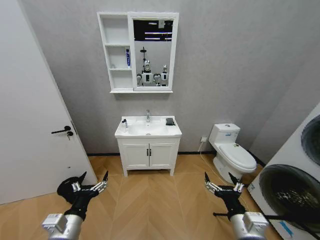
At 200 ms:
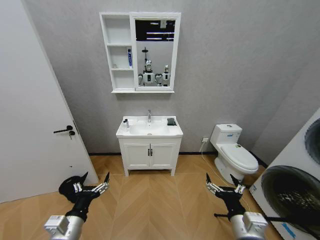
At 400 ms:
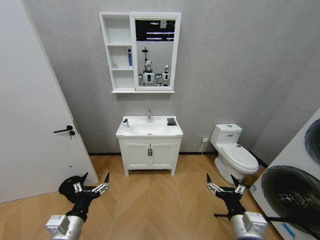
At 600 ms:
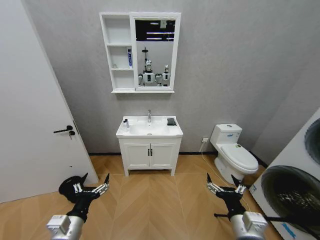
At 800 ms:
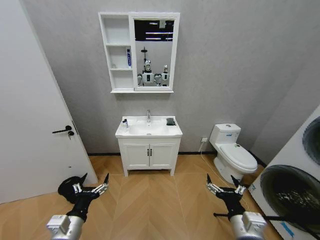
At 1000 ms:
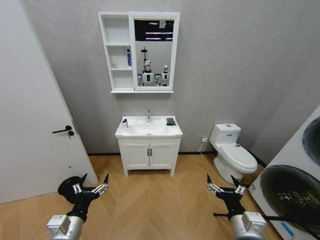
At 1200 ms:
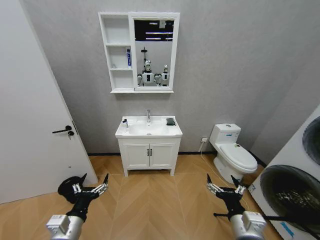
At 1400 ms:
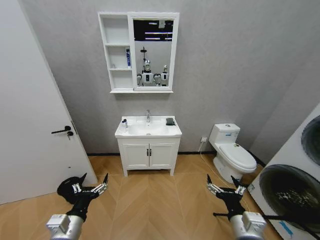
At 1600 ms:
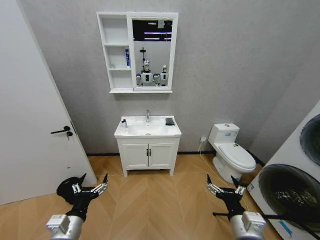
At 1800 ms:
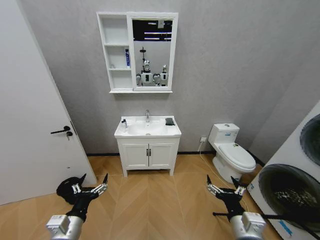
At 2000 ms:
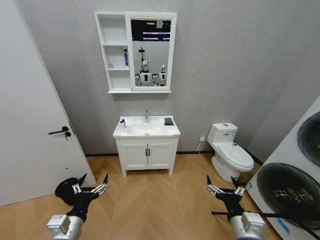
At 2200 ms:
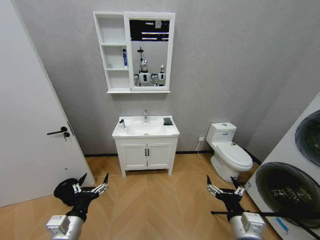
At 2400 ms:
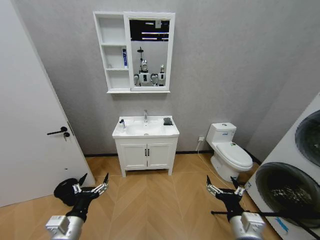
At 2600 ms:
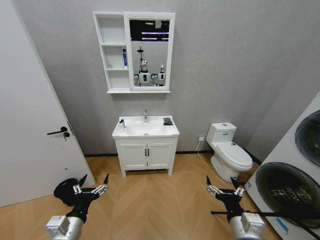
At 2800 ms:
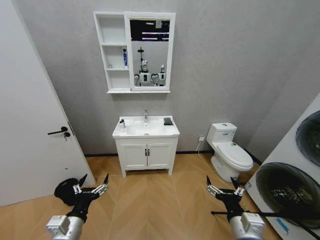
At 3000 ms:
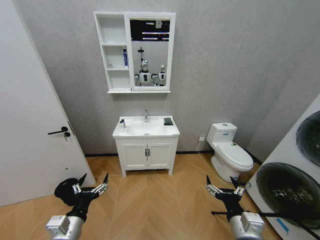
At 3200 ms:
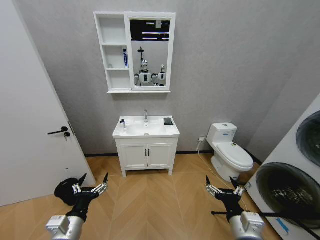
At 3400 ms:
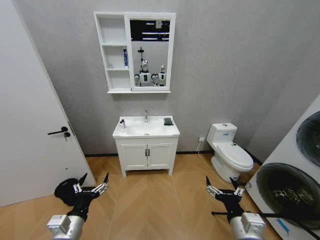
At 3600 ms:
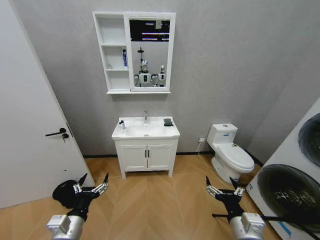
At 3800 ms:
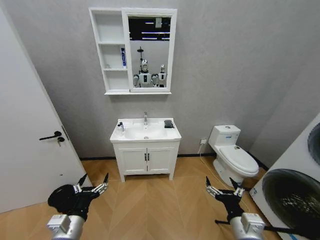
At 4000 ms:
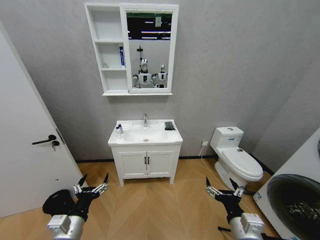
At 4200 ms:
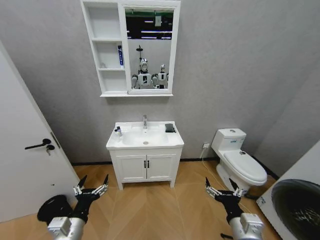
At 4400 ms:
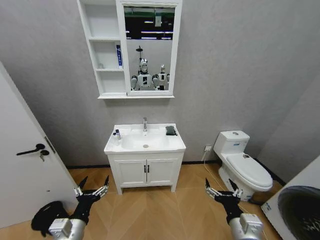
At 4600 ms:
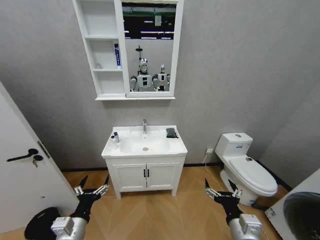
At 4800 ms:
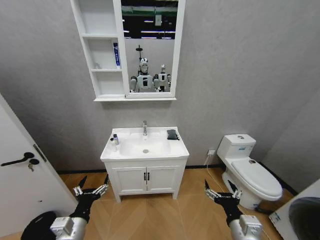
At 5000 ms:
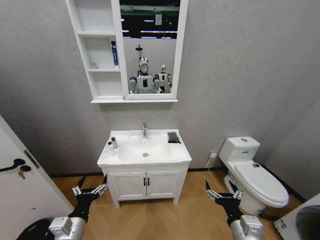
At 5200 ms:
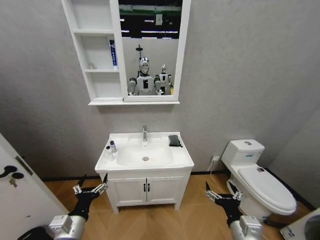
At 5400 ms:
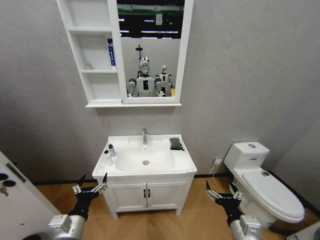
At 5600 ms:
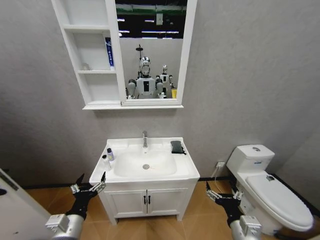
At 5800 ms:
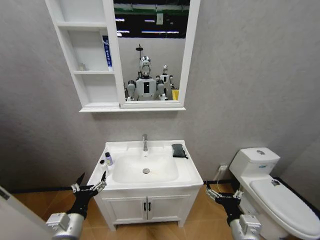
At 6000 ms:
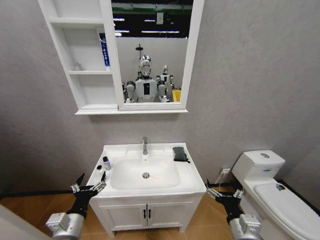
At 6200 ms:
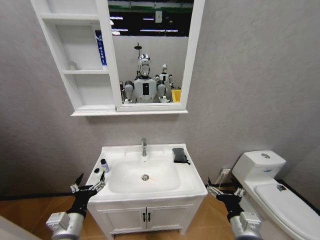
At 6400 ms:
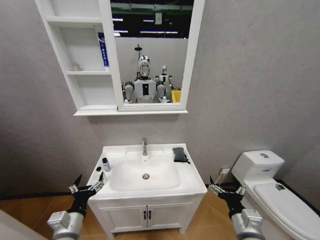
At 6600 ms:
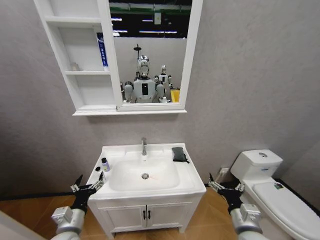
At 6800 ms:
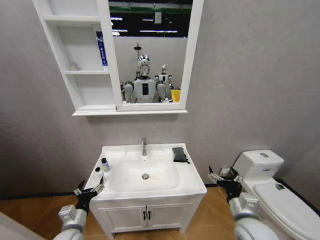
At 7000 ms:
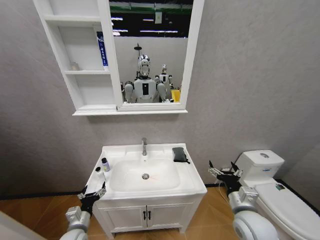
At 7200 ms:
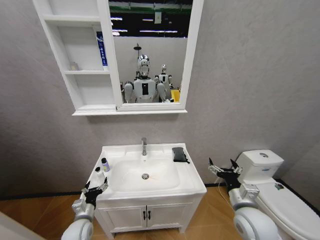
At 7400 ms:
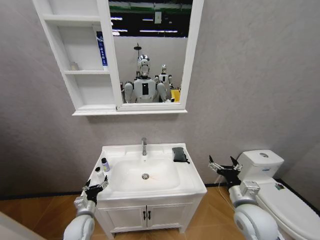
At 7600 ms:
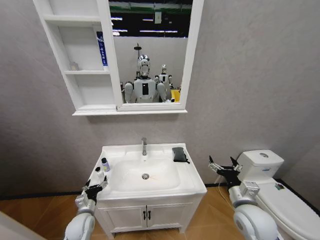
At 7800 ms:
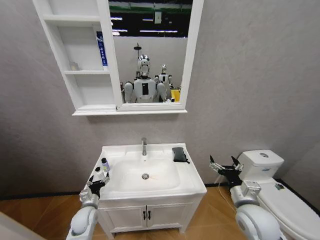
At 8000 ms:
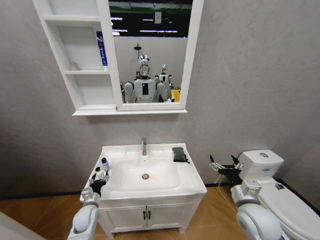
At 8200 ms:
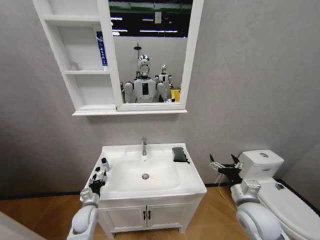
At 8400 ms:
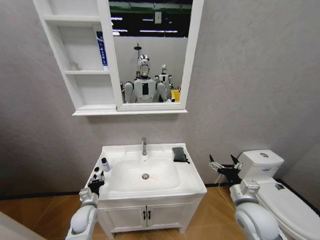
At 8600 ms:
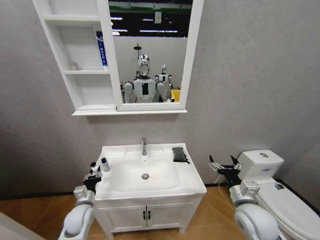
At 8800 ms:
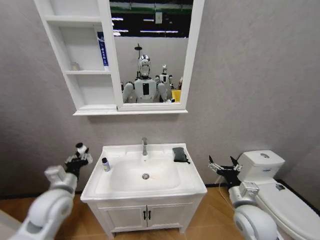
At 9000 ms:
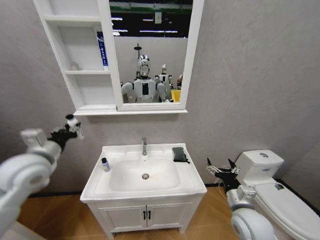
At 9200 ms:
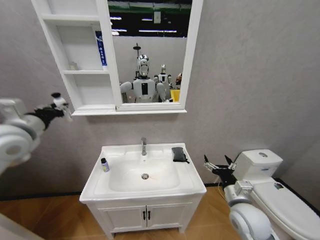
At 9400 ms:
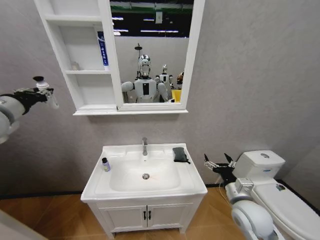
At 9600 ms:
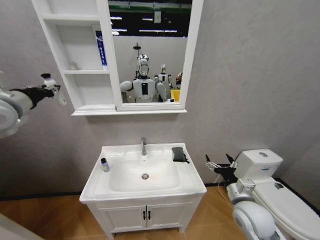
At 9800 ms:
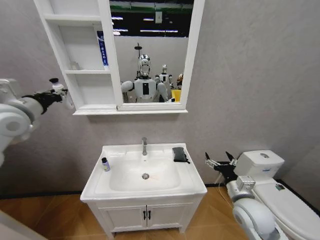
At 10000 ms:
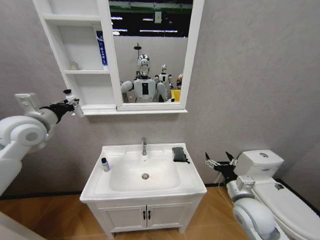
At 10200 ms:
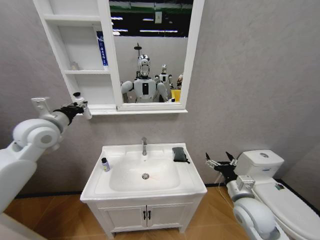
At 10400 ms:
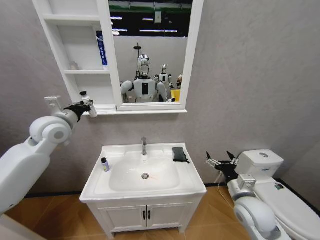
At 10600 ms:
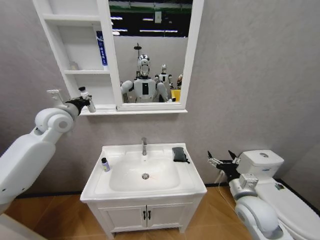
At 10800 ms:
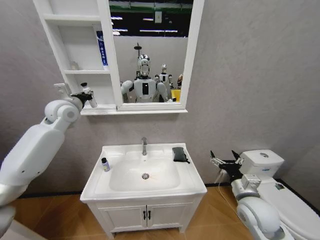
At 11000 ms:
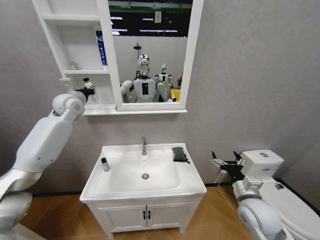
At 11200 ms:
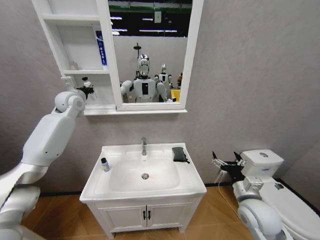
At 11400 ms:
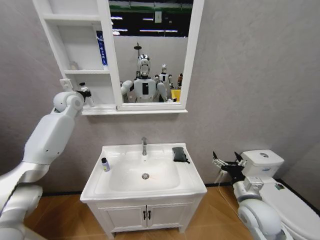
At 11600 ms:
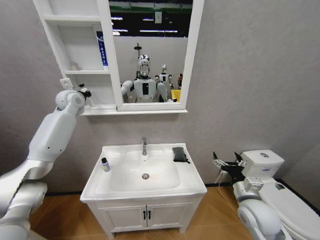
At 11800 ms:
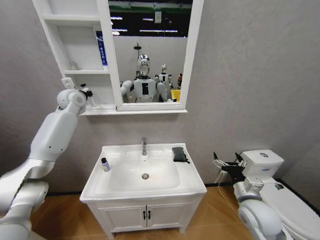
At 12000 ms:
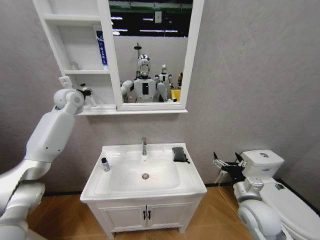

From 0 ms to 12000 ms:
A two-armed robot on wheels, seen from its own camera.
Task of the whole recording: Move facial cleanser and shampoo from washbasin to cabinet, then wipe washbasin with towel.
From 1600 ms to 3000 ms: The two grippers keep their place.
From 6000 ms to 7600 ms: The left gripper is displaced downward and forward by about 20 cm. Meanwhile the right gripper shifts about 10 cm forward.
From 7600 ms to 9000 ms: The left gripper shifts about 35 cm upward, and closes up.
From 9000 ms to 10400 ms: The left gripper moves forward and upward, some 15 cm.
From 10400 ms to 12000 ms: The left gripper heads forward, covering approximately 15 cm.

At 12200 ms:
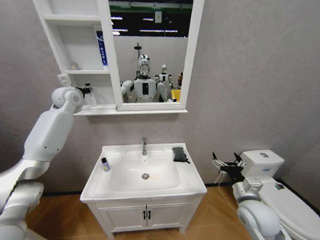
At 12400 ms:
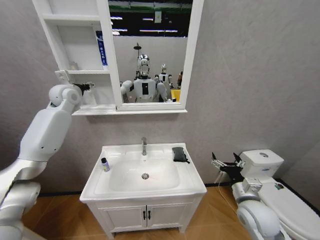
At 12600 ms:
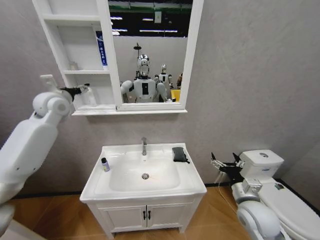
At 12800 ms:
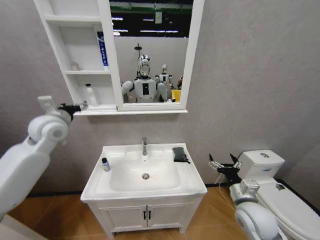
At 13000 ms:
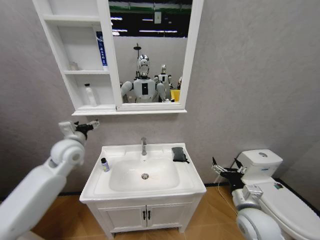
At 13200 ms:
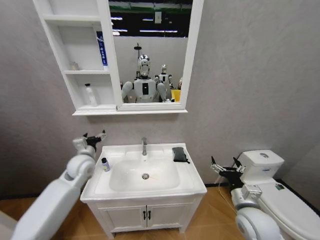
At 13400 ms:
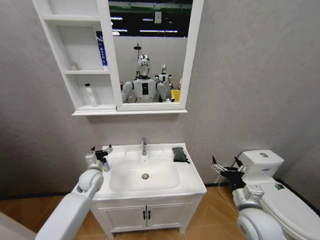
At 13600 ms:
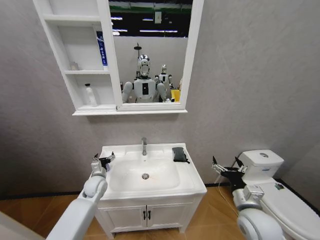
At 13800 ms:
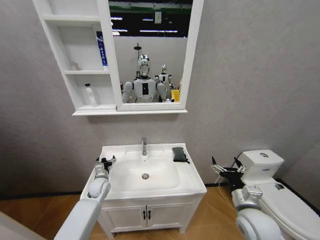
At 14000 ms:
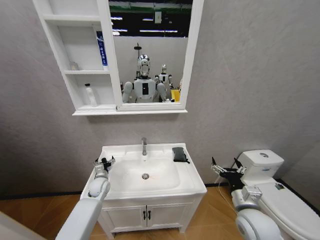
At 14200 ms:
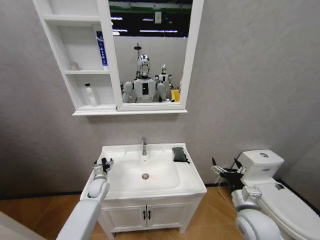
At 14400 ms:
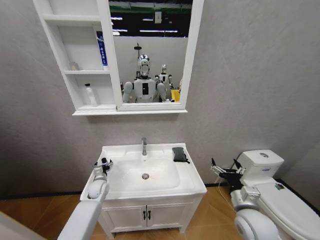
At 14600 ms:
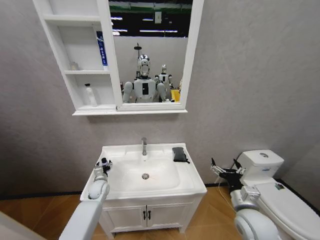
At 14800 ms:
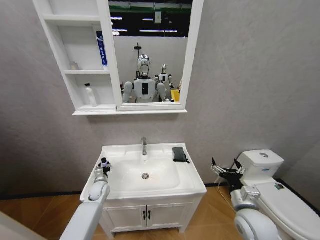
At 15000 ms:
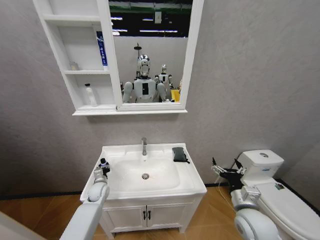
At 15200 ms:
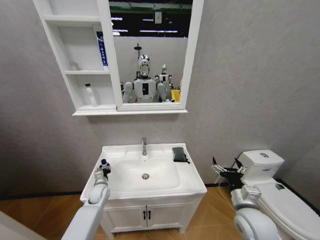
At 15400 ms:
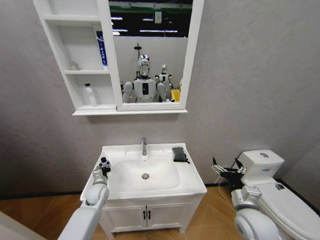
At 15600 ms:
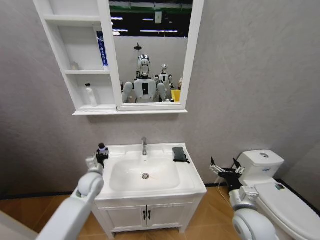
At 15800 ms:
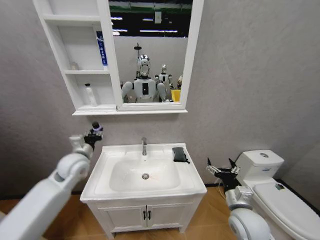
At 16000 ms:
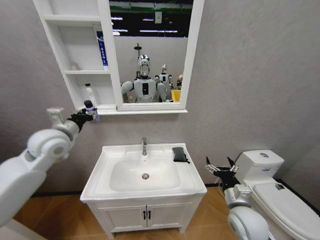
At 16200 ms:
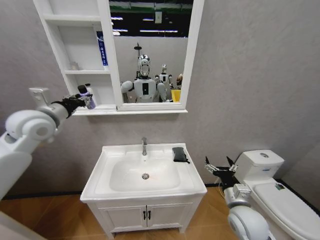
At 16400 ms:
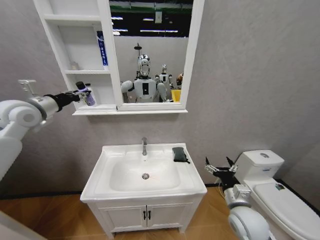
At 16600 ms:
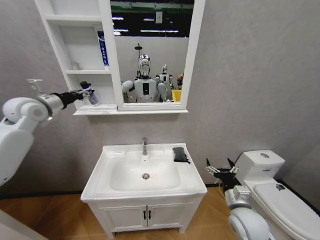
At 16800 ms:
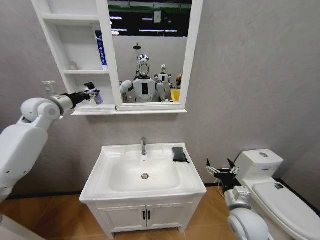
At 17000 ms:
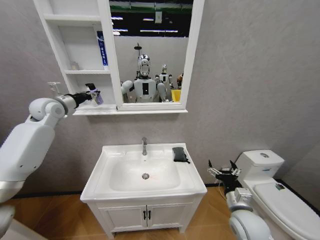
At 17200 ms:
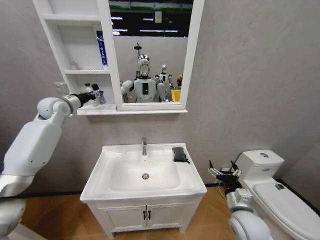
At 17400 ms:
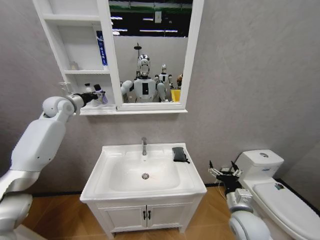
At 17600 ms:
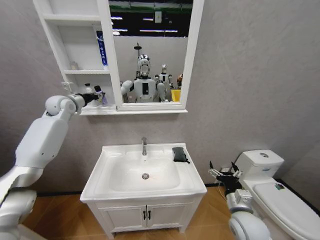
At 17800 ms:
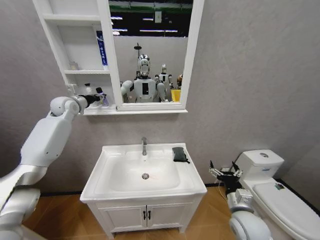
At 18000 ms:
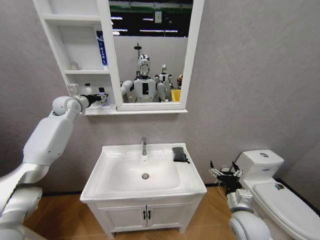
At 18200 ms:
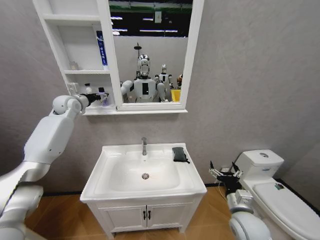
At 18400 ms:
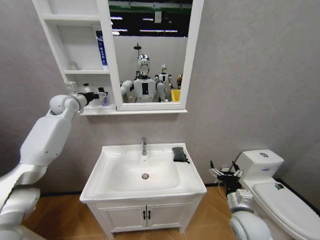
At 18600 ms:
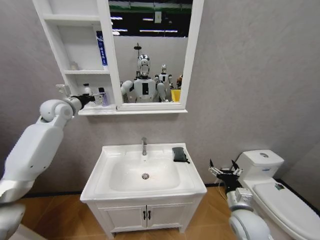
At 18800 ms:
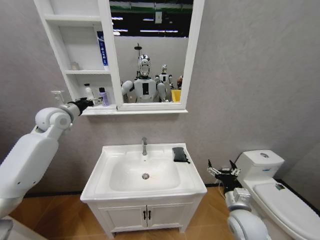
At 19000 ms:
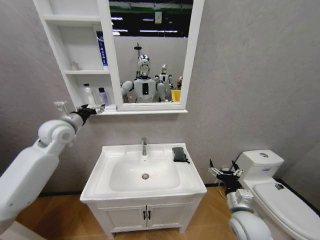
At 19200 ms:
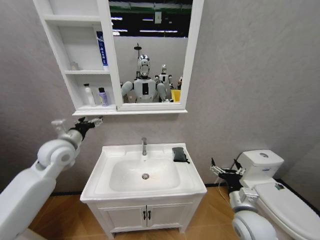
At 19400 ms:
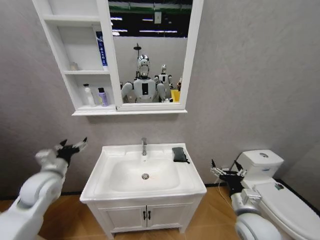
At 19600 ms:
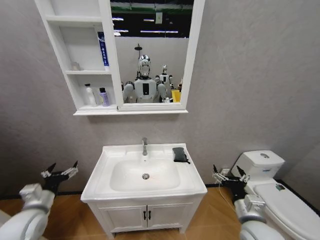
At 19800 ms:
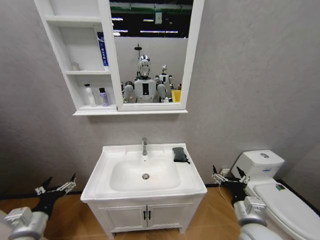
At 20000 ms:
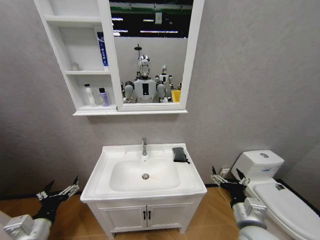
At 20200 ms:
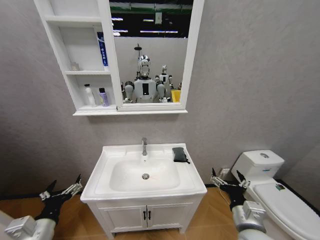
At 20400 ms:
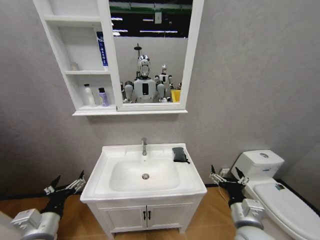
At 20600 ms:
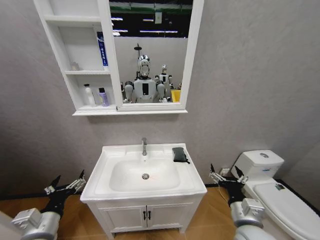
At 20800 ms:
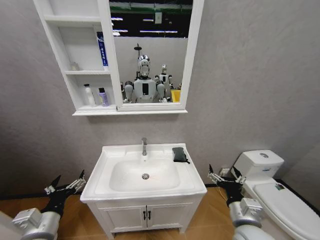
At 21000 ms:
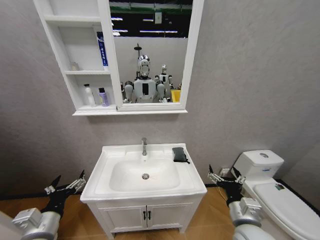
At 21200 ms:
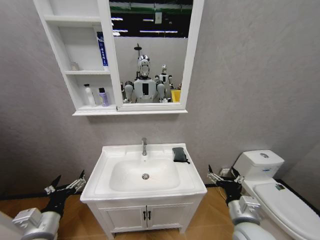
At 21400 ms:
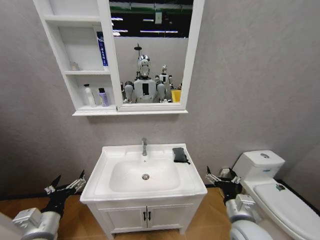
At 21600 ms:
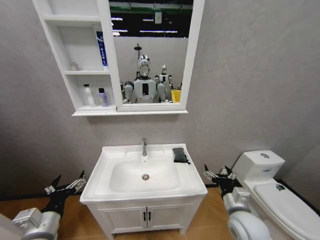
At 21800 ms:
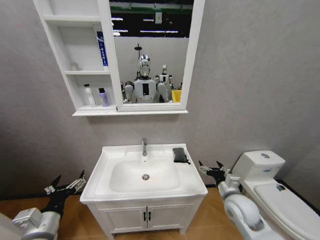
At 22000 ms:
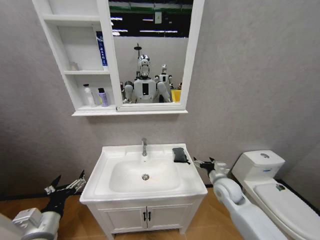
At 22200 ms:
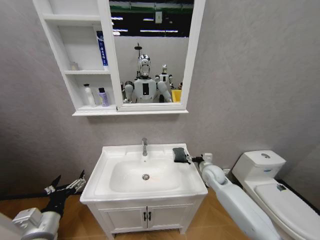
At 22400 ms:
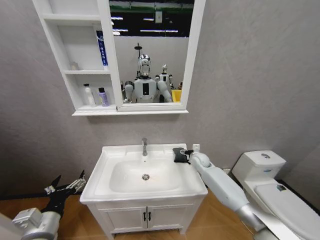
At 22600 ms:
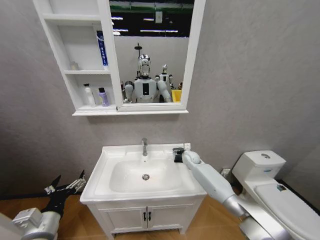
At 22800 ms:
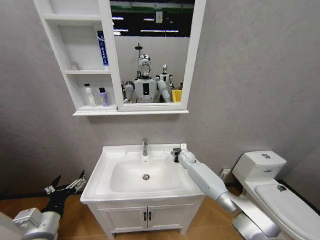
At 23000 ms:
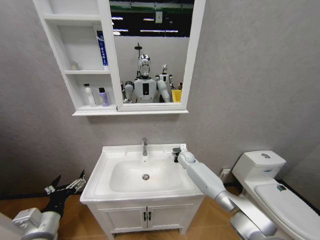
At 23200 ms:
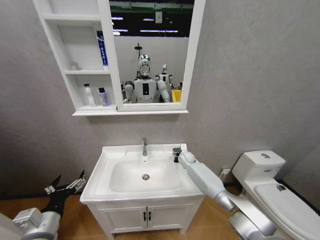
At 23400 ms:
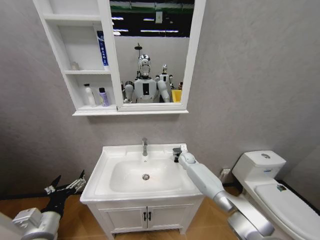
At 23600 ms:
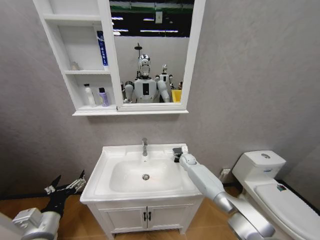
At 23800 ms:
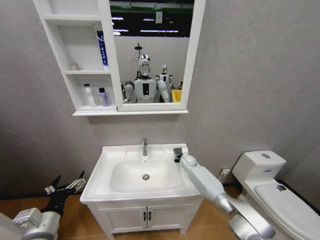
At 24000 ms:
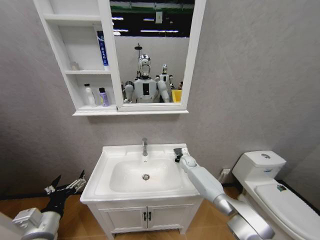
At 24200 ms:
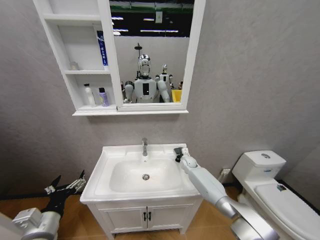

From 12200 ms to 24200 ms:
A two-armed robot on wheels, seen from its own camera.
Task of the whole recording: Move facial cleanser and shampoo from washbasin to cabinet, then wipe washbasin with towel.
From 12200 ms to 13800 ms: The left gripper is displaced downward by some 40 cm, and opens up.
From 13800 ms to 15200 ms: The left gripper closes.
From 15200 ms to 16600 ms: The left gripper is displaced upward by approximately 40 cm.
From 16600 ms to 18200 ms: The left gripper moves forward, some 10 cm, and opens.
From 18200 ms to 19800 ms: The right gripper moves approximately 5 cm, while the left gripper travels backward and downward by some 50 cm.
From 19800 ms to 21200 ms: The left gripper travels to the right by approximately 5 cm.
From 21200 ms to 22600 ms: The right gripper heads forward, covering about 35 cm.
From 22600 ms to 24200 ms: The right gripper moves downward, some 5 cm, and closes up.
